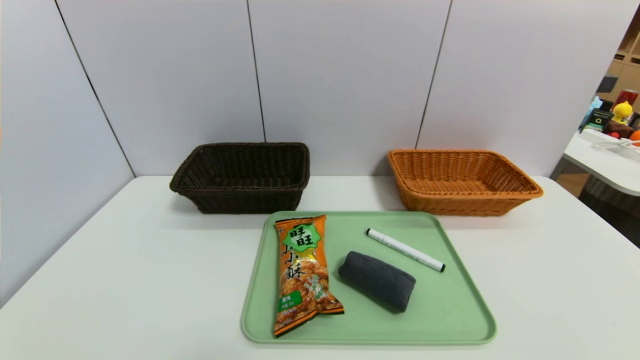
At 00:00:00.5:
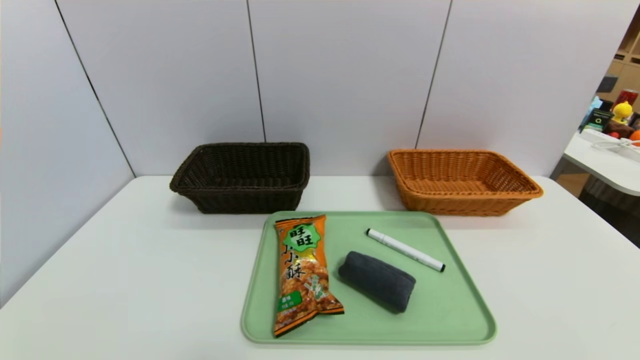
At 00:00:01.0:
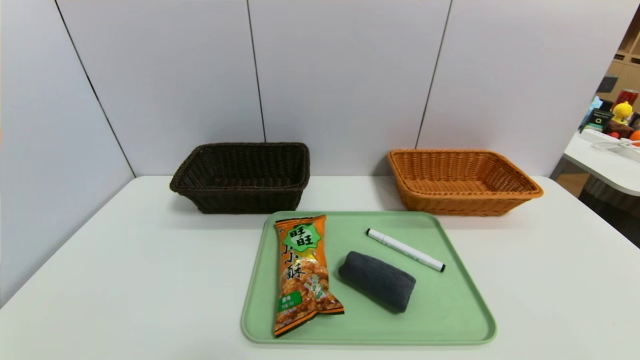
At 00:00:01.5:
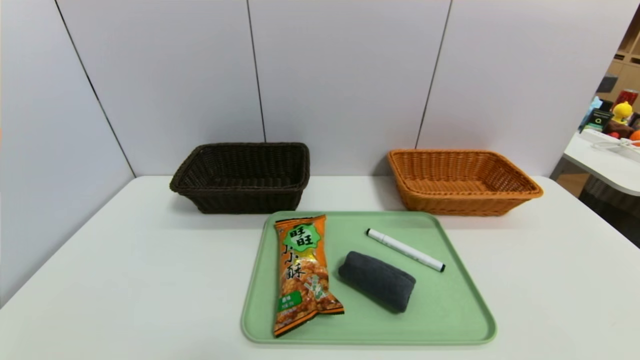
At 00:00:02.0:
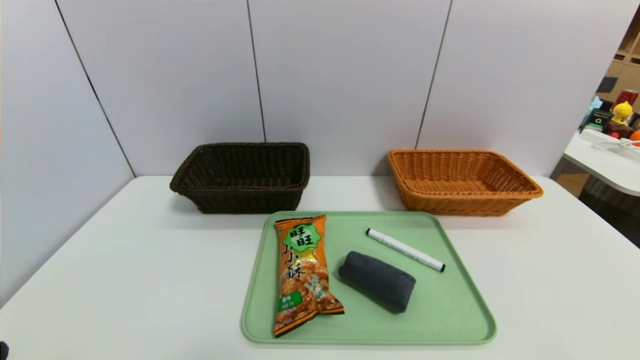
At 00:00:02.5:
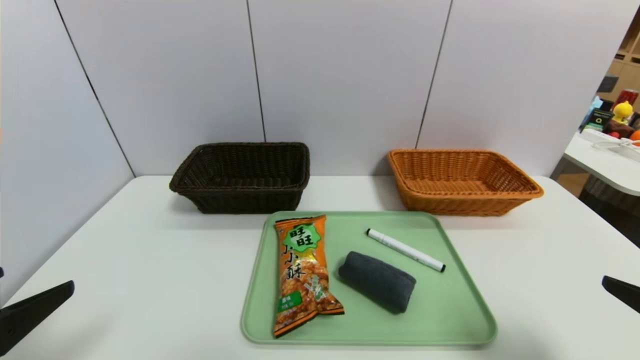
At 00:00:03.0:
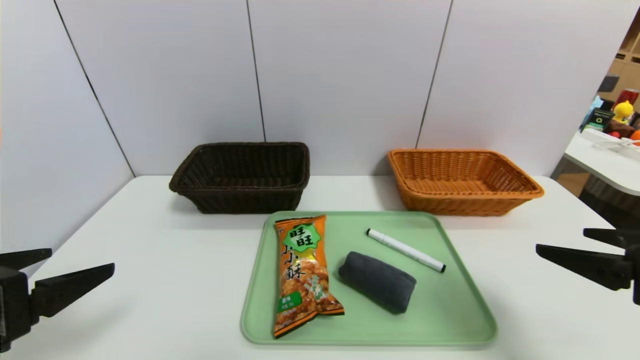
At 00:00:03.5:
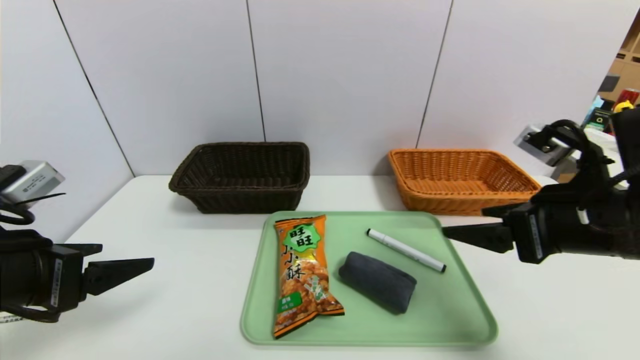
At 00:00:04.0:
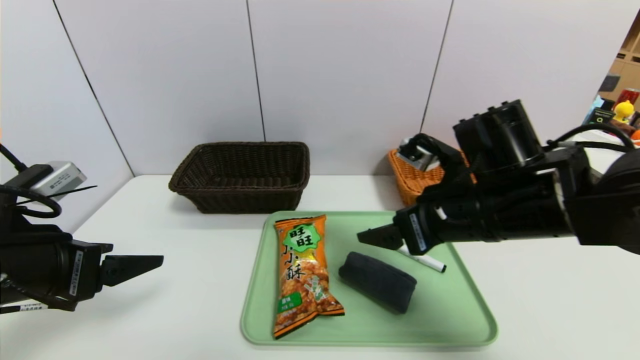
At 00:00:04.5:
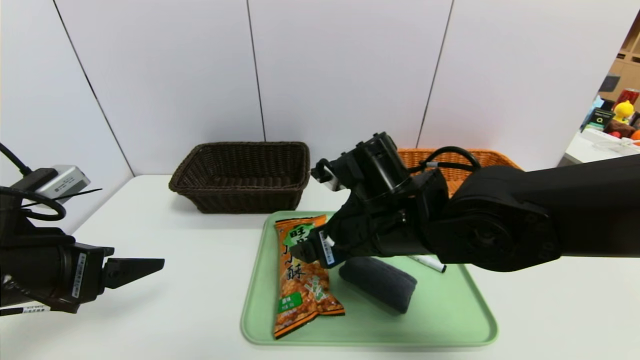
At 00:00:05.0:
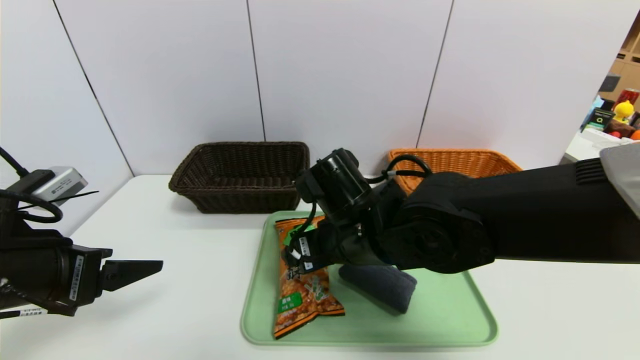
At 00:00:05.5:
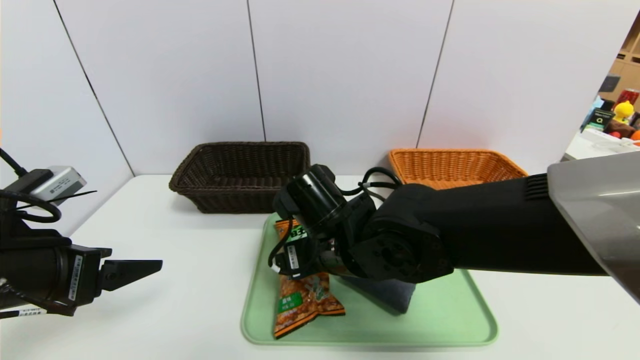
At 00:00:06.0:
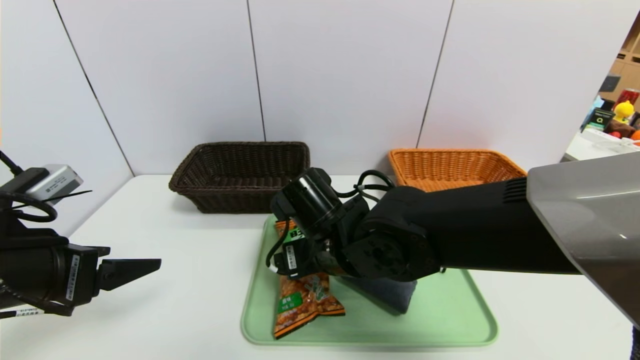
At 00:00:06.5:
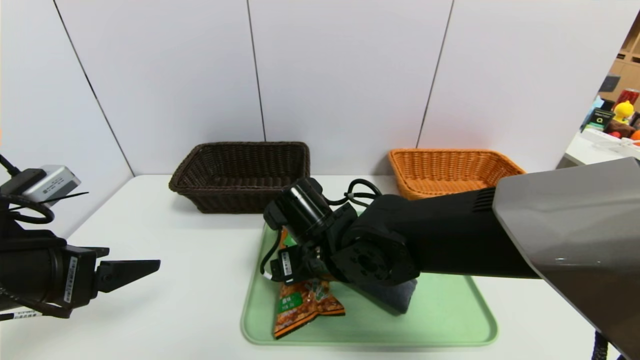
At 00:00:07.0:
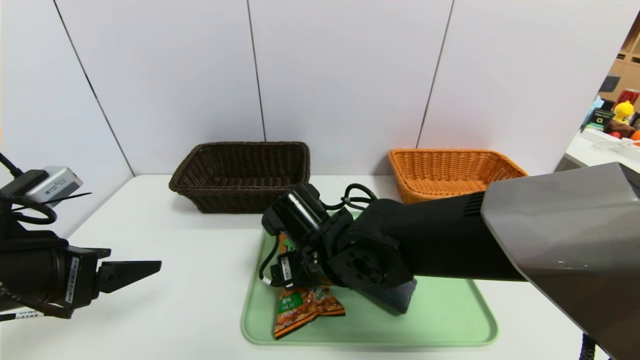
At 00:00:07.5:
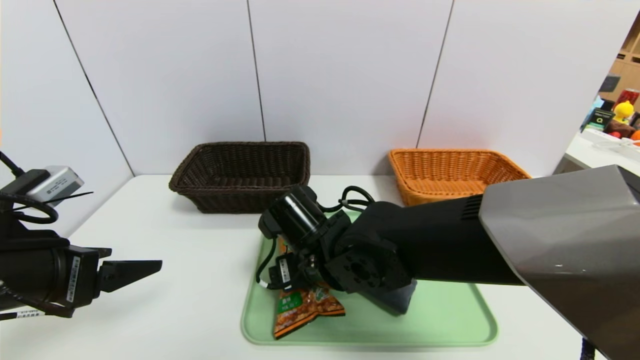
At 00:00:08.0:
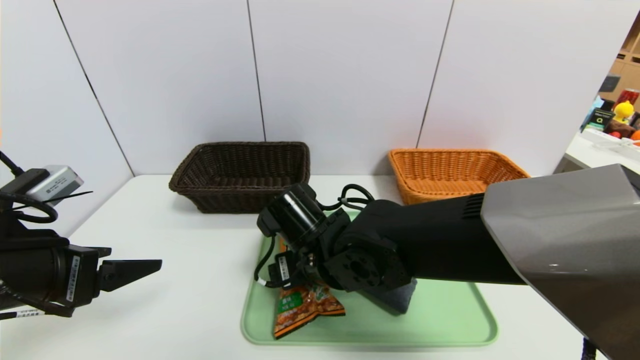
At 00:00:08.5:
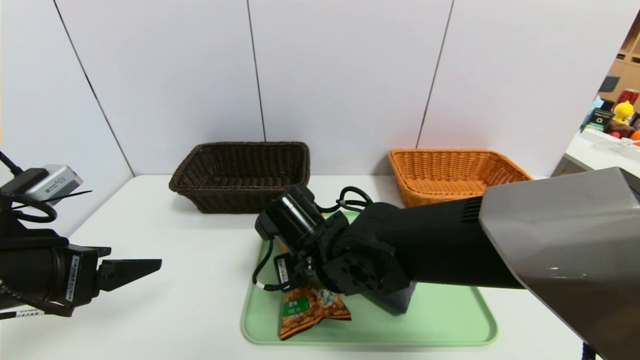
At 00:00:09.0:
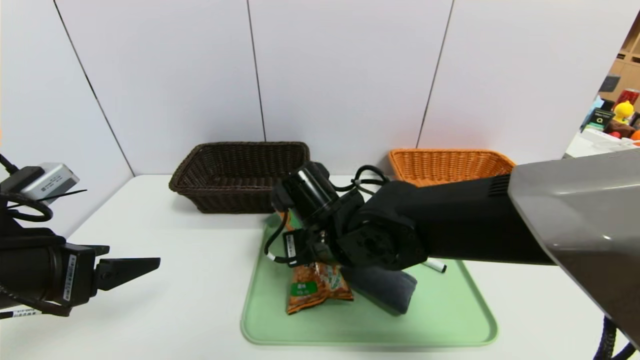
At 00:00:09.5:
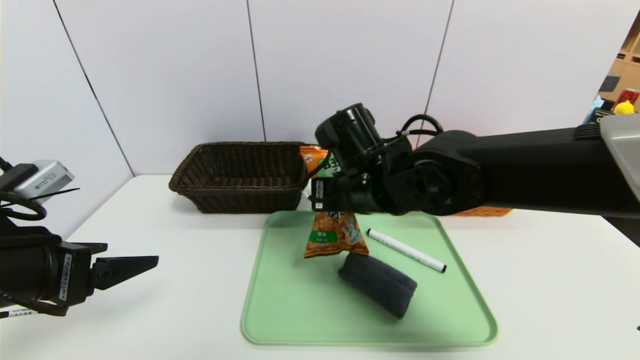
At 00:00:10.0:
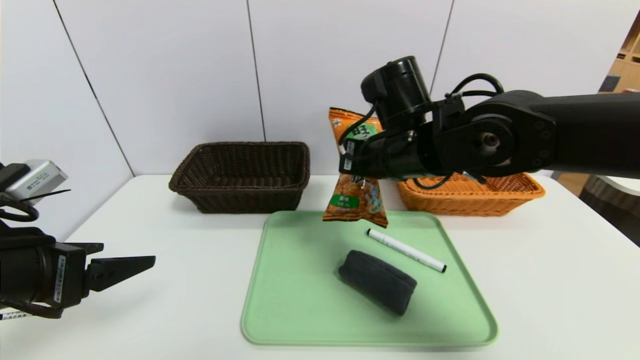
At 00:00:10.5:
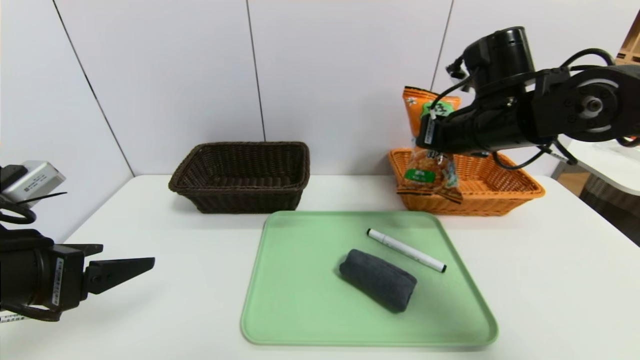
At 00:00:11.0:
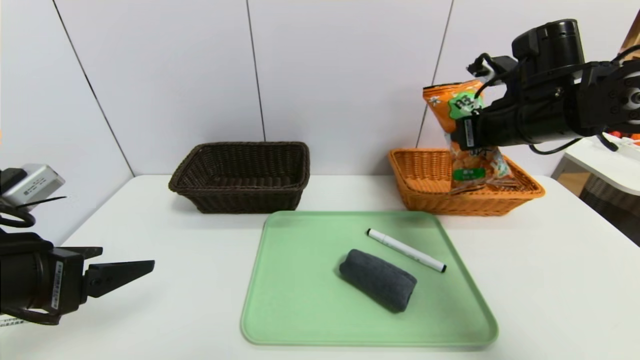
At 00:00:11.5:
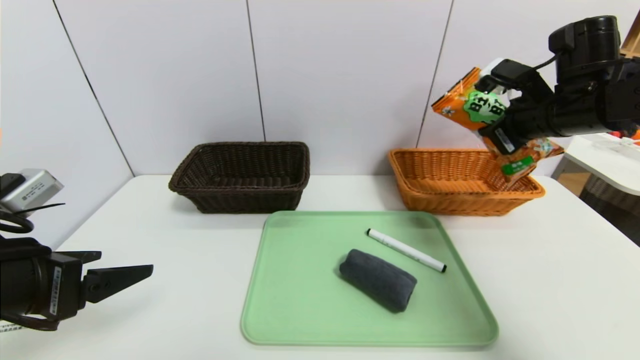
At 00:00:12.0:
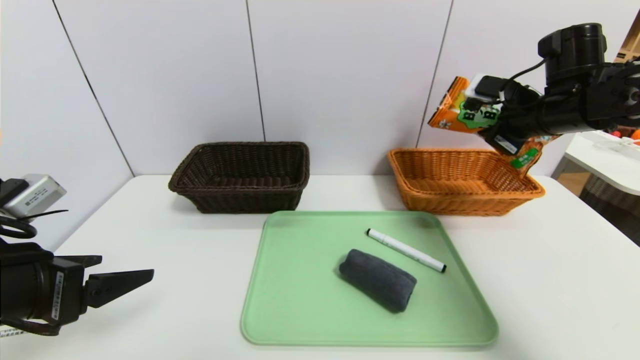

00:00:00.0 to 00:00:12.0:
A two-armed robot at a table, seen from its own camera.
Task of the whole recording: place the food in the right basket with the right gripper, and place the non food items in the left basket with the left gripper.
00:00:02.0 to 00:00:04.0: The left gripper moves forward, about 15 cm; the right gripper moves forward and to the left, roughly 30 cm.
00:00:04.0 to 00:00:06.0: The right gripper goes some 15 cm to the left and downward.
00:00:06.0 to 00:00:08.0: The grippers stay close to where they were, moving slightly.
00:00:08.0 to 00:00:10.0: The right gripper goes some 15 cm upward, to the right and forward, and closes.
00:00:10.0 to 00:00:12.0: The right gripper shifts about 20 cm to the right.

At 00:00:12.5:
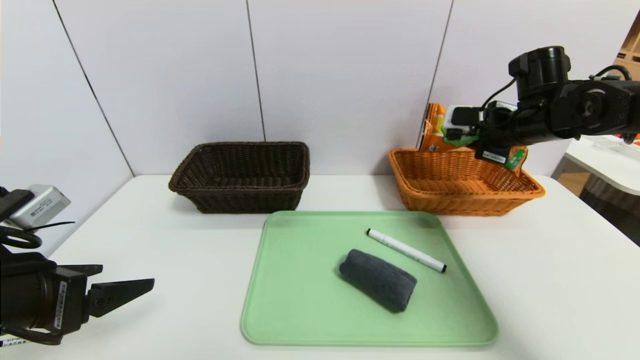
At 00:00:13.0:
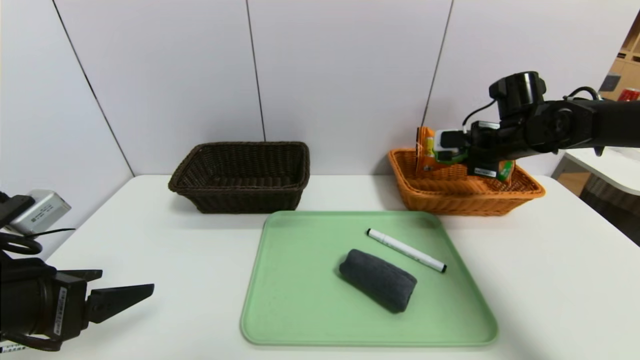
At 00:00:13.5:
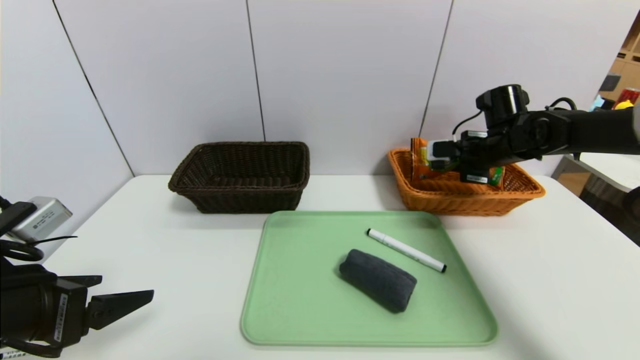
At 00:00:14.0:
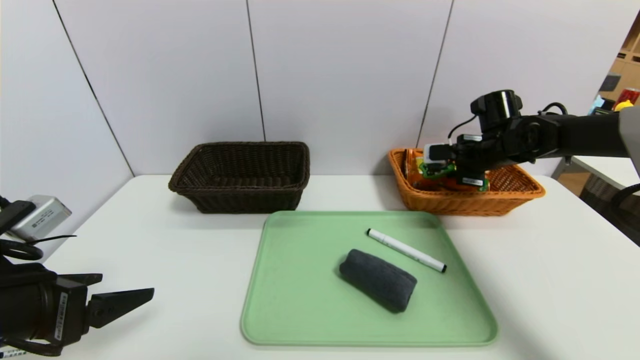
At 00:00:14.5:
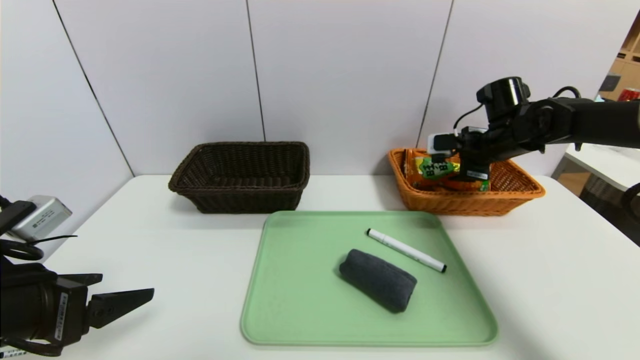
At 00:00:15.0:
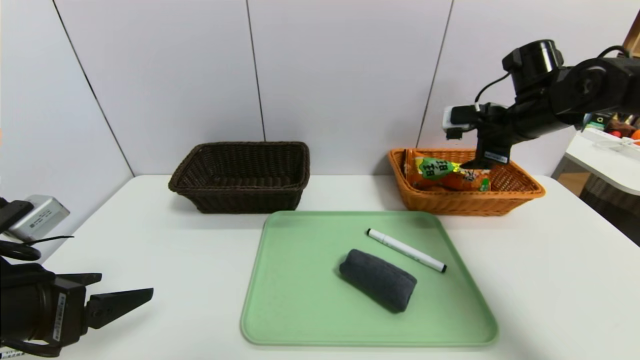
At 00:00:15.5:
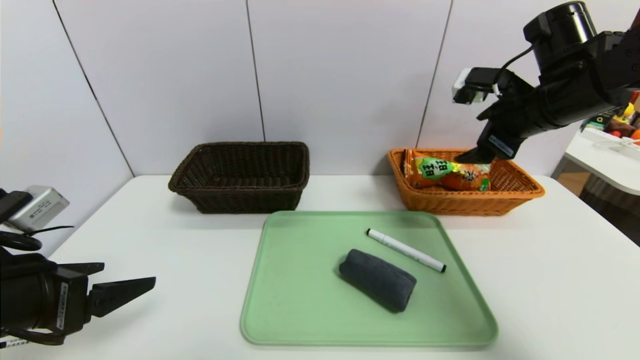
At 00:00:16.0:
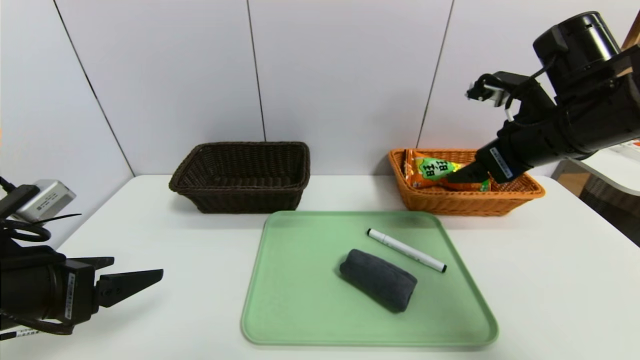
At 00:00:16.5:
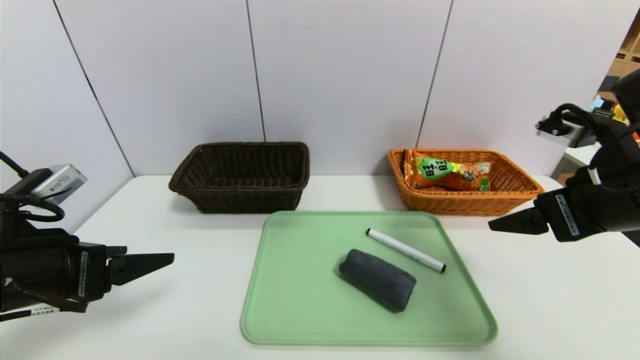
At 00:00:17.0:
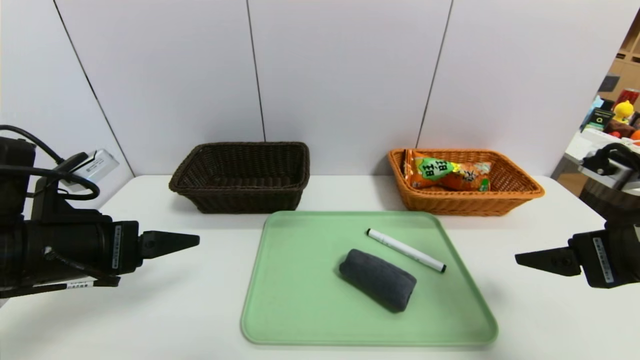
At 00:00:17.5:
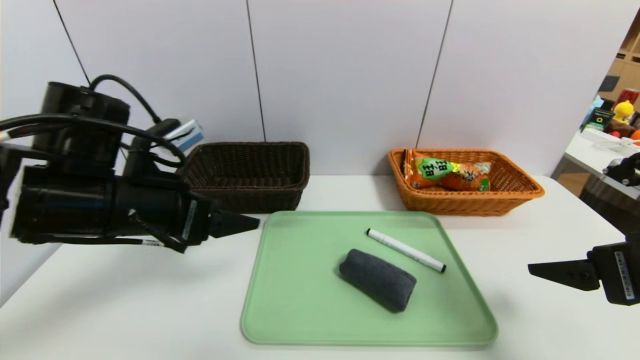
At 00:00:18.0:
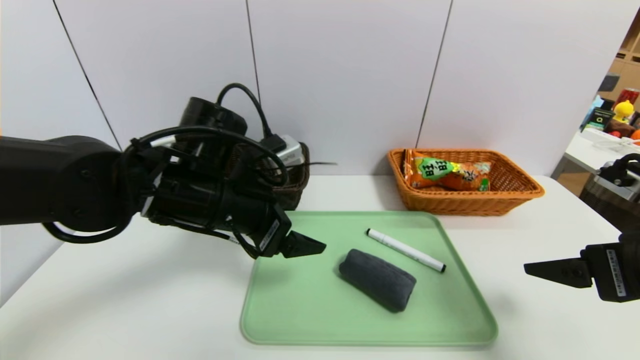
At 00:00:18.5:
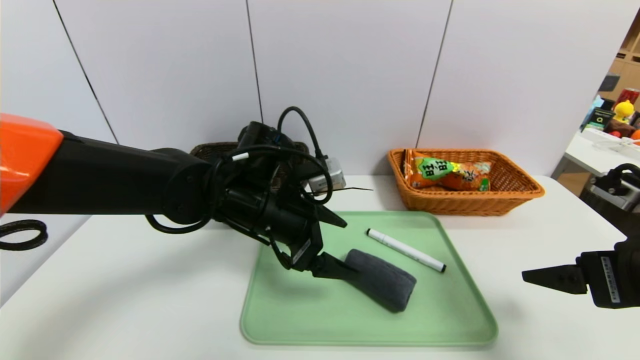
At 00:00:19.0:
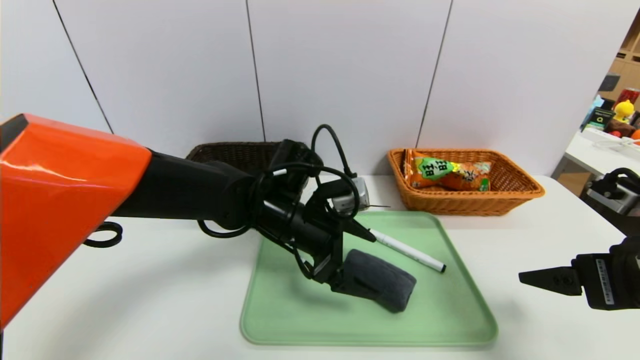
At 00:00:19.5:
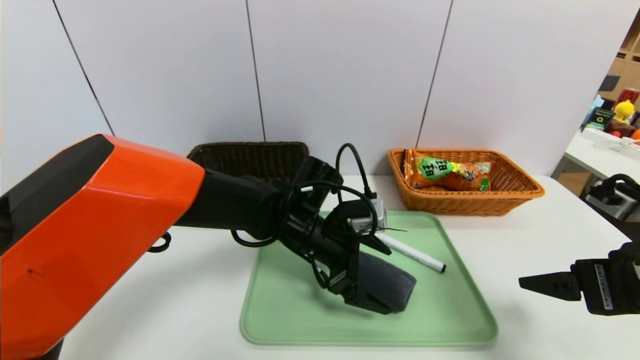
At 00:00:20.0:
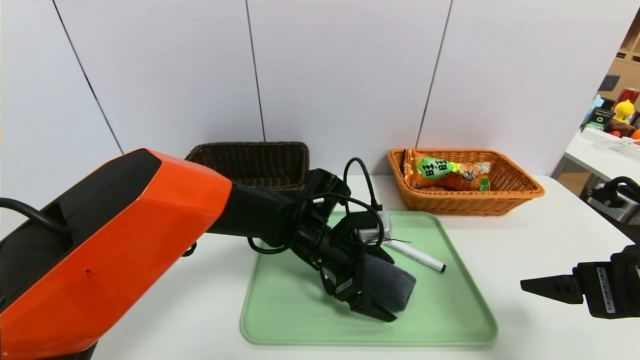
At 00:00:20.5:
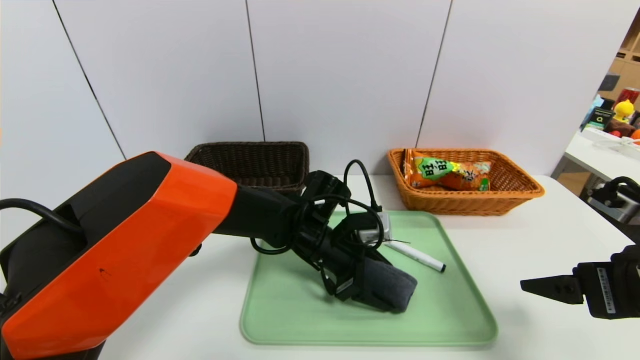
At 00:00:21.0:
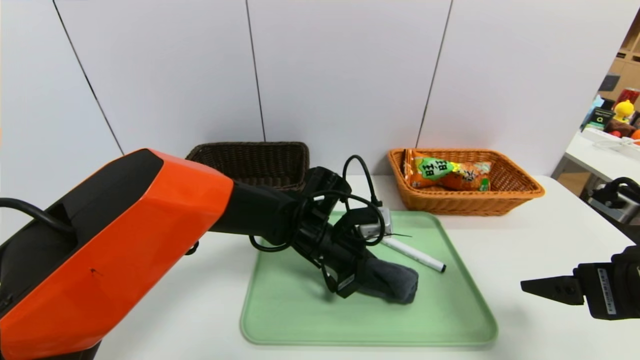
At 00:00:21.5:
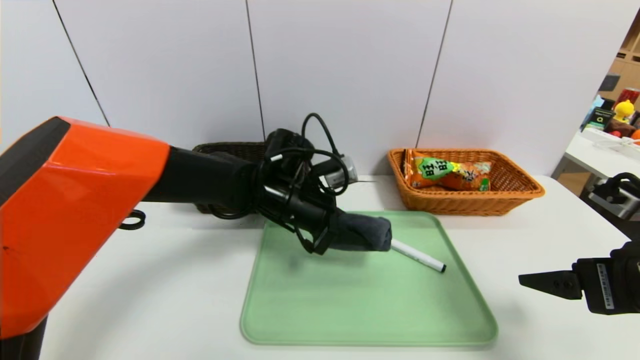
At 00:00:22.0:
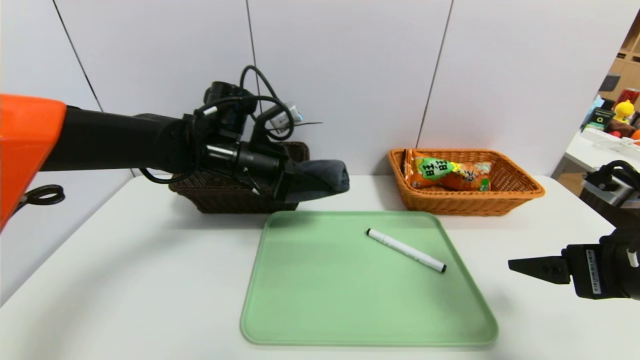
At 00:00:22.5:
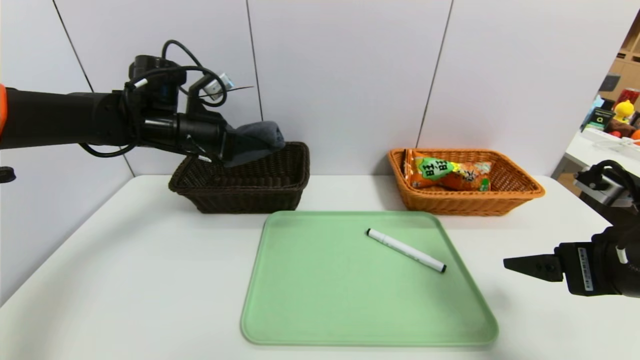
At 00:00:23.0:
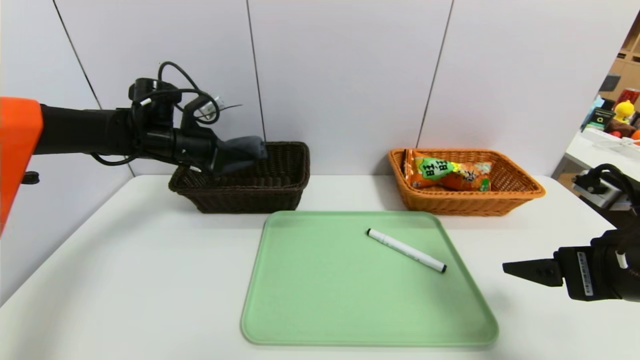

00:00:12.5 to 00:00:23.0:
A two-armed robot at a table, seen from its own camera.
Task of the whole recording: place the food in the right basket with the right gripper, and place the non food items in the left basket with the left gripper.
00:00:12.5 to 00:00:14.5: The right gripper opens up.
00:00:14.5 to 00:00:16.5: The right gripper travels backward by roughly 25 cm.
00:00:16.5 to 00:00:19.0: The left gripper heads to the right and forward, covering some 30 cm; the right gripper changes place by about 5 cm.
00:00:19.0 to 00:00:21.0: The left gripper shifts by about 5 cm, and closes.
00:00:21.0 to 00:00:23.0: The left gripper is displaced to the left, forward and upward by about 30 cm.
